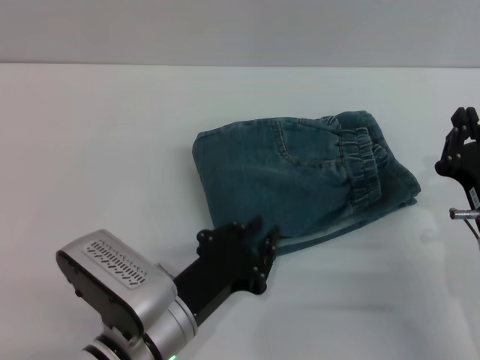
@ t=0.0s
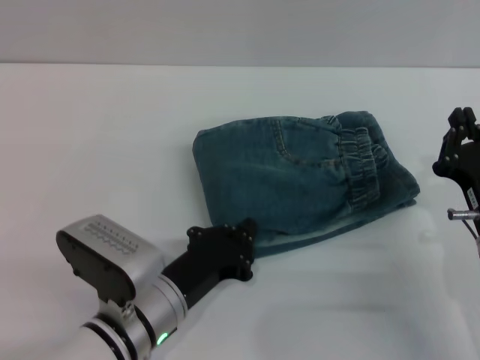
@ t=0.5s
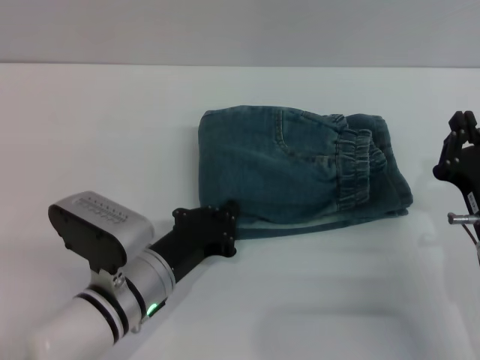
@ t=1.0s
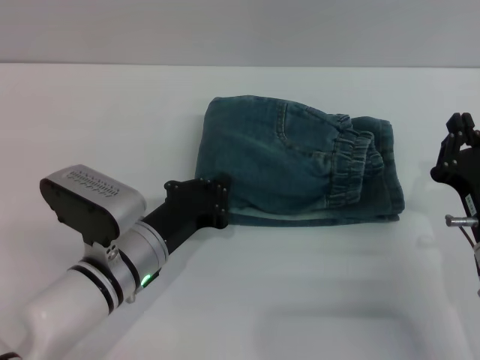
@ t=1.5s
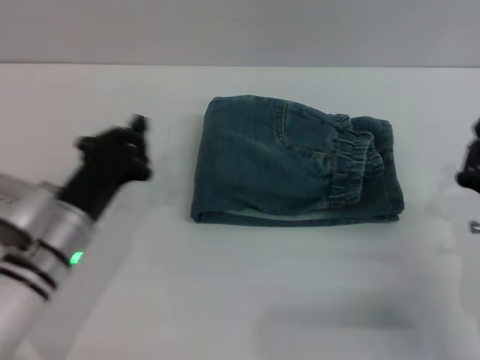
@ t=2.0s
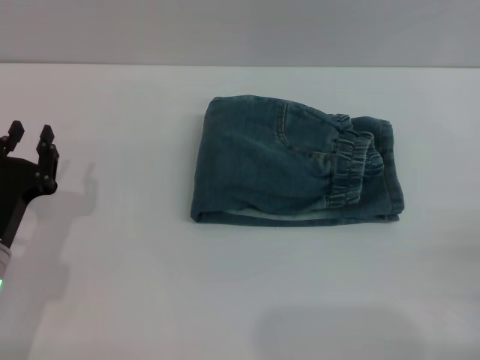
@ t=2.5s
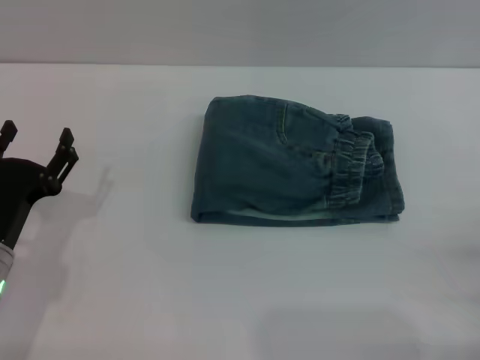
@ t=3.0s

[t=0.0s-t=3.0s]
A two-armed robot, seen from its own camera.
t=0.0s to t=1.5s: The left gripper is displaced forward by approximately 10 cm, and closes up.
t=1.5s to t=3.0s: The left gripper moves to the left, approximately 10 cm, and opens up; the right gripper is displaced to the right and backward by roughly 10 cm, and opens.
